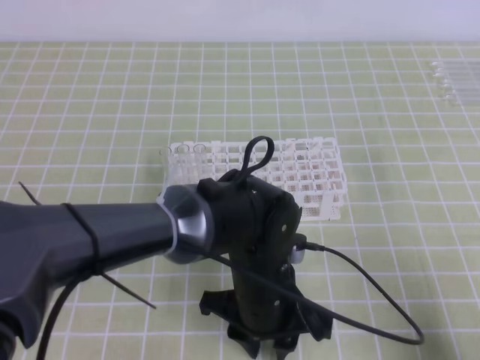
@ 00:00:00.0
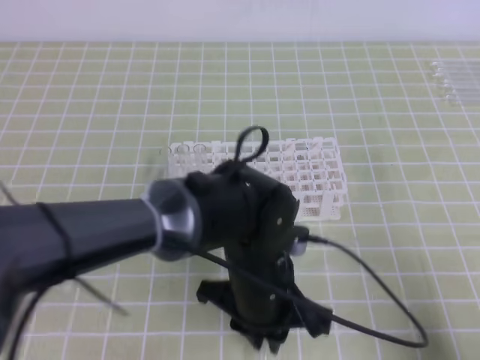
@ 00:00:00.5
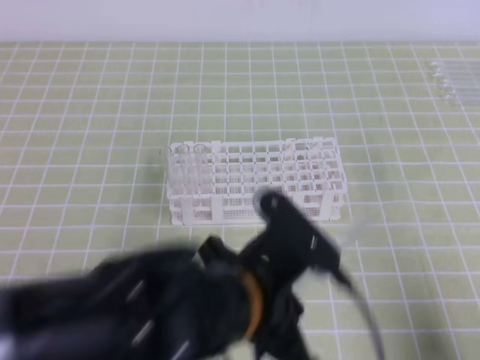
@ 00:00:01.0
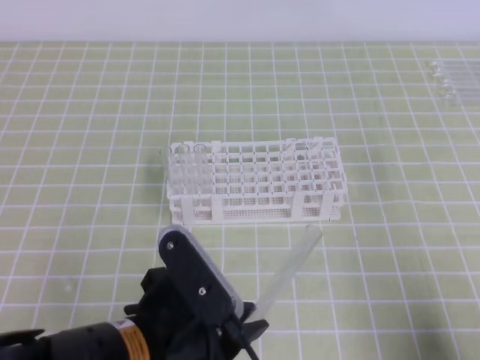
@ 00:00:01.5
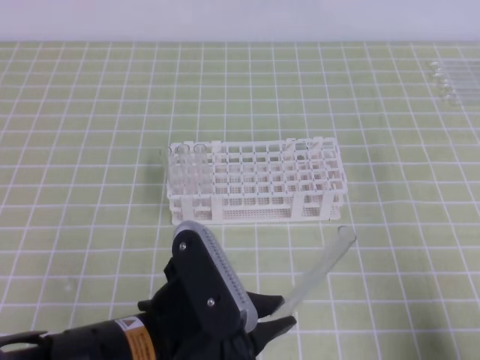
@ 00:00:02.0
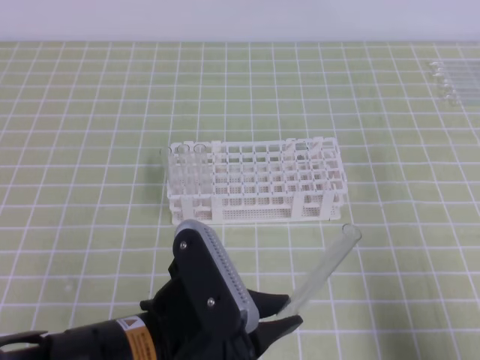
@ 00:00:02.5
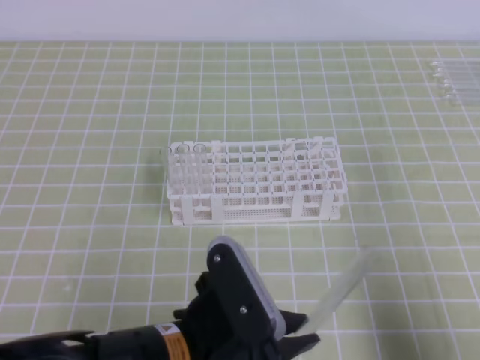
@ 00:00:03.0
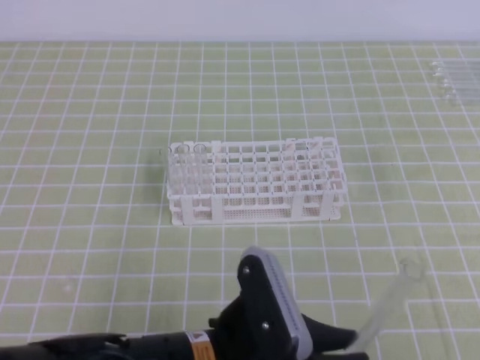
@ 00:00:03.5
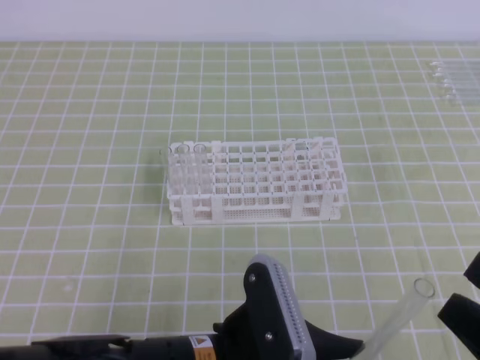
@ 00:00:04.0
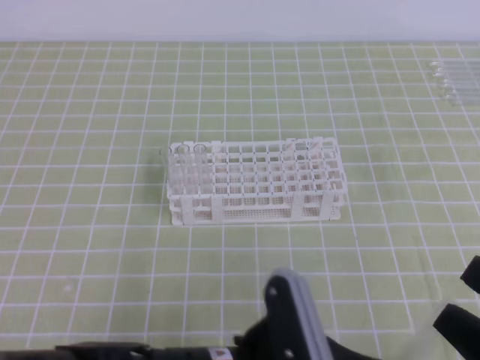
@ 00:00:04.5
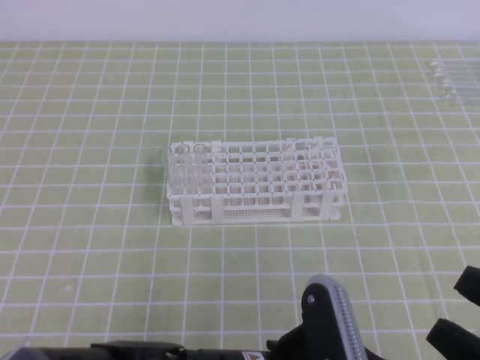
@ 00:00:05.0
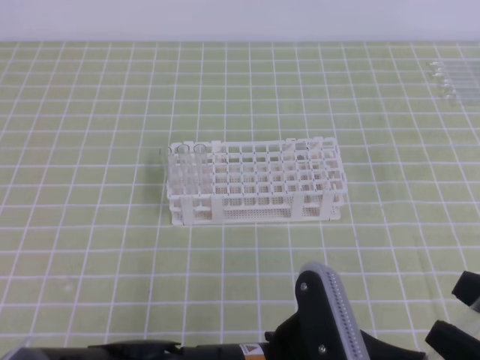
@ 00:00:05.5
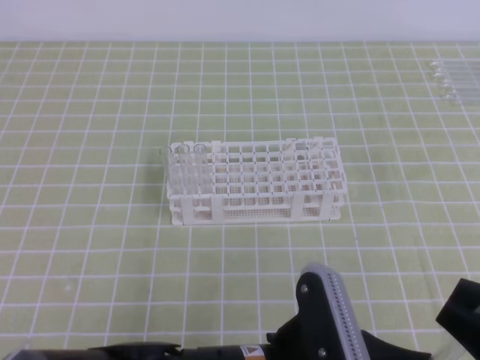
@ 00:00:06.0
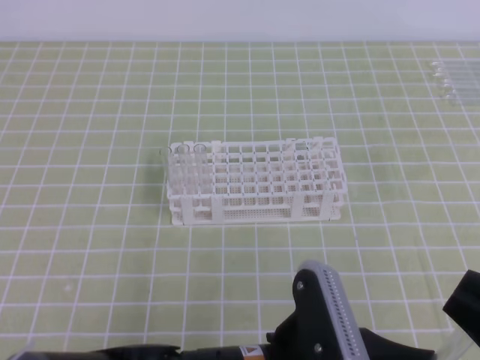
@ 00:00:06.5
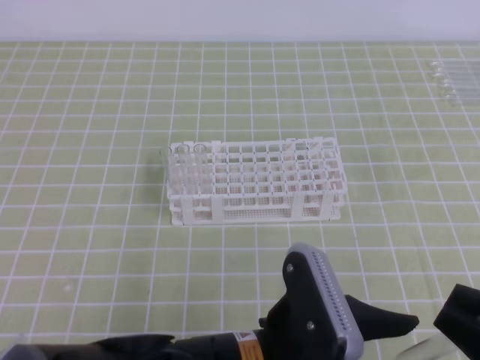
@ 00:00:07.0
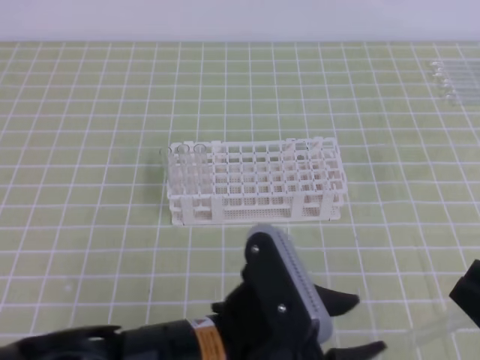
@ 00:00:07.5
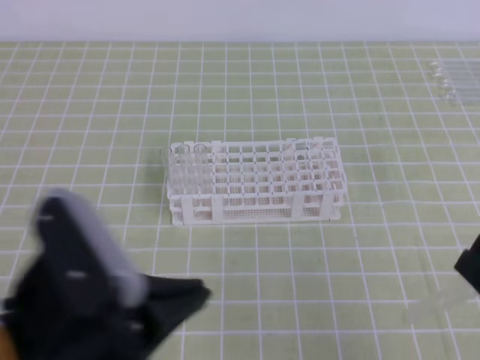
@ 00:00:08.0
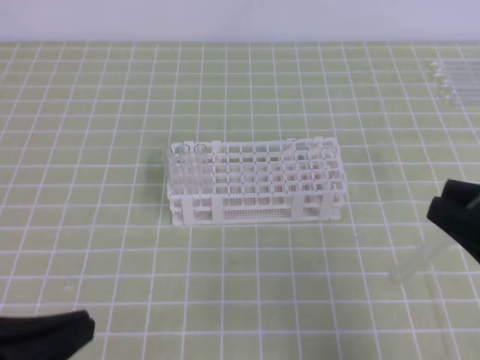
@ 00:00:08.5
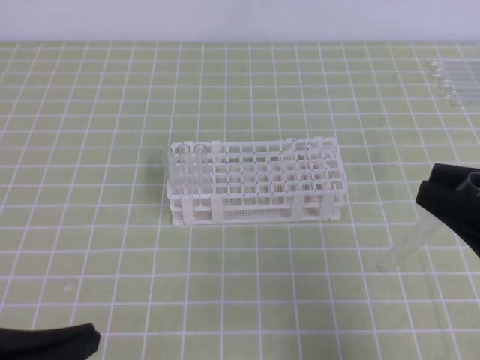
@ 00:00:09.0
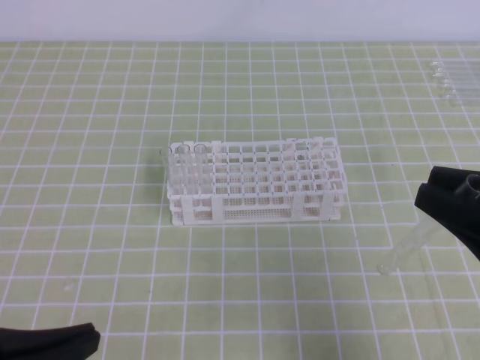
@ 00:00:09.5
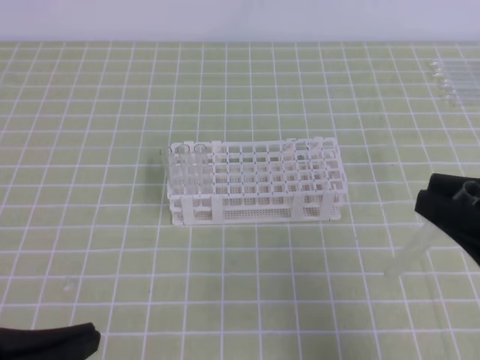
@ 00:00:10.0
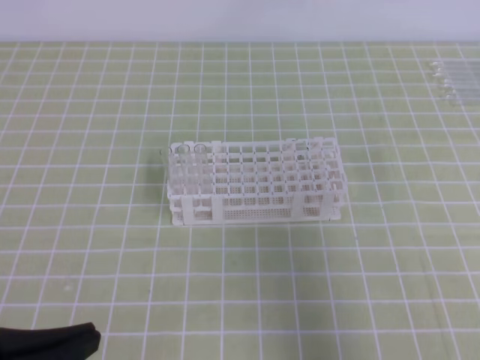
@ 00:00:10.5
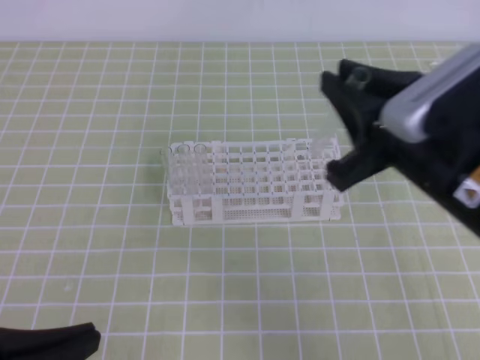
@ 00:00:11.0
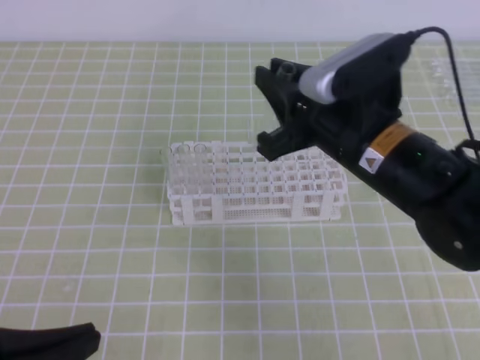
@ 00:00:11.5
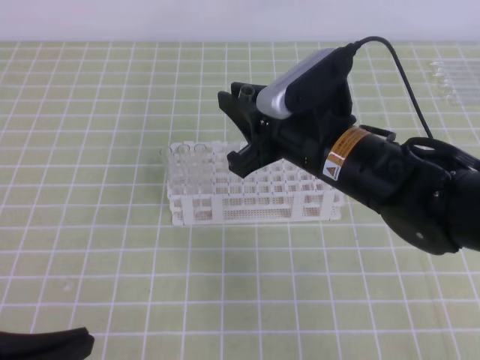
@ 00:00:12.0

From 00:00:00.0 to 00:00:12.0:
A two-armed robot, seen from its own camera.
From 00:00:00.0 to 00:00:02.0: The left gripper shifts about 15 cm backward, to the left and upward, and closes up.
From 00:00:02.0 to 00:00:04.0: The right gripper heads upward and to the left, covering some 10 cm, and opens its fingers. The left gripper changes place by roughly 5 cm.
From 00:00:04.0 to 00:00:06.0: The right gripper closes up.
From 00:00:06.0 to 00:00:08.0: The left gripper heads to the left and upward, covering about 15 cm, and opens, then closes once more.
From 00:00:08.0 to 00:00:10.0: The right gripper heads forward, covering approximately 5 cm. Meanwhile the left gripper is displaced to the left by roughly 10 cm.
From 00:00:10.0 to 00:00:12.0: The right gripper moves to the left and forward, approximately 25 cm.

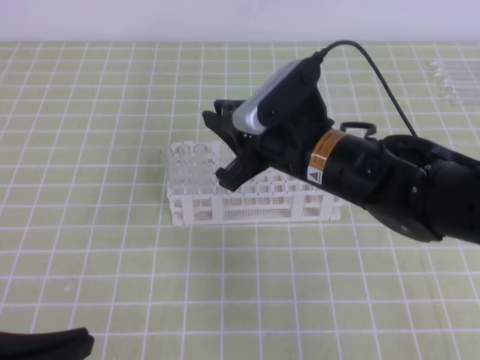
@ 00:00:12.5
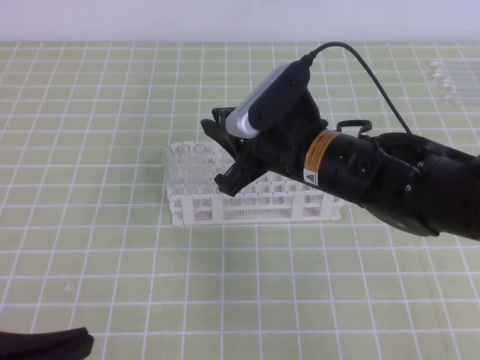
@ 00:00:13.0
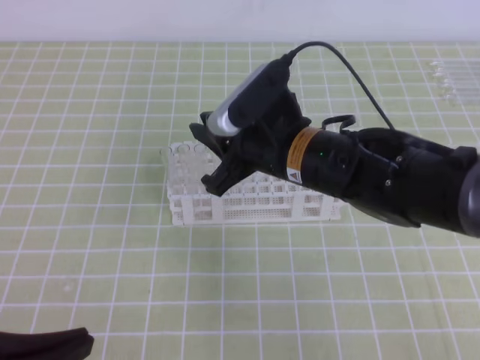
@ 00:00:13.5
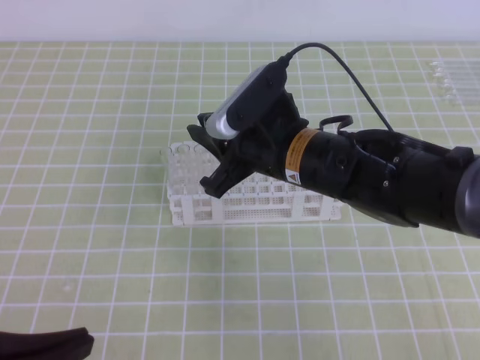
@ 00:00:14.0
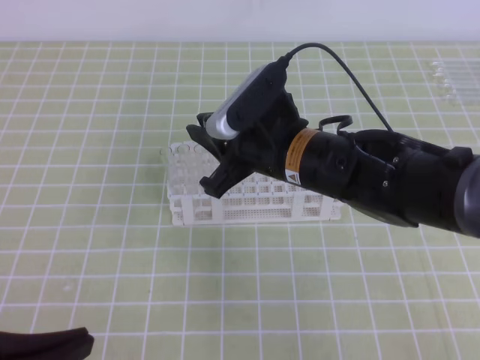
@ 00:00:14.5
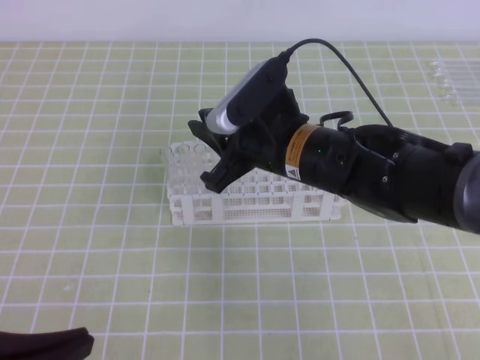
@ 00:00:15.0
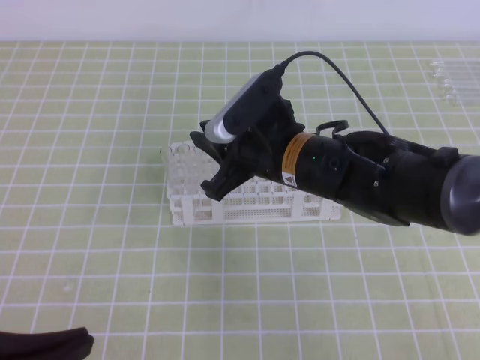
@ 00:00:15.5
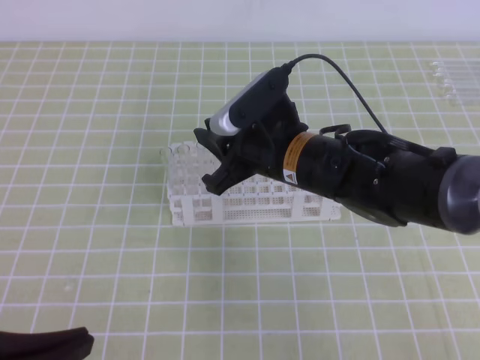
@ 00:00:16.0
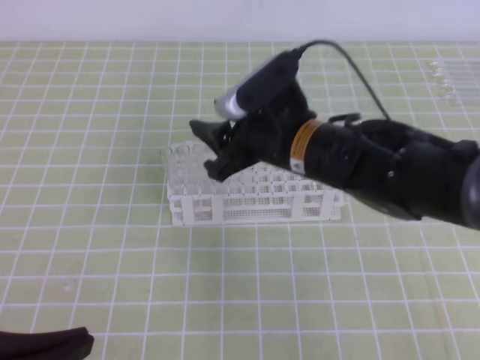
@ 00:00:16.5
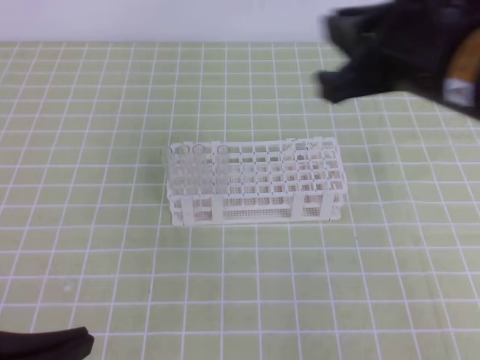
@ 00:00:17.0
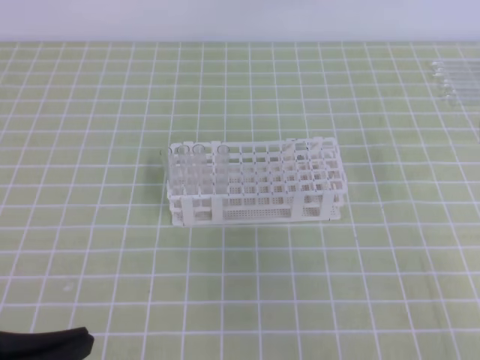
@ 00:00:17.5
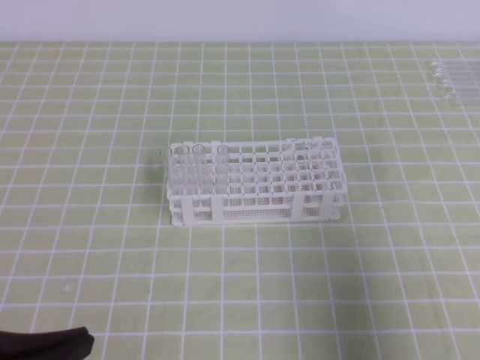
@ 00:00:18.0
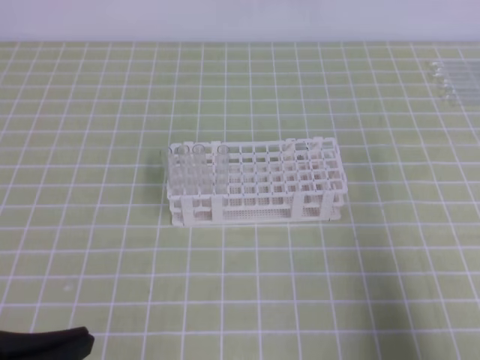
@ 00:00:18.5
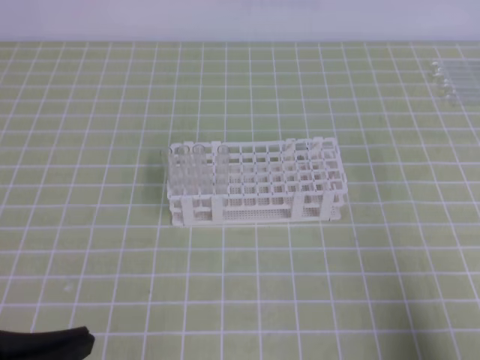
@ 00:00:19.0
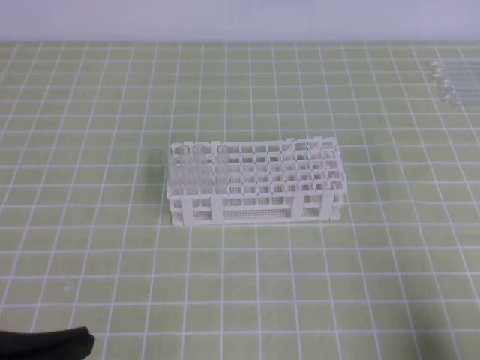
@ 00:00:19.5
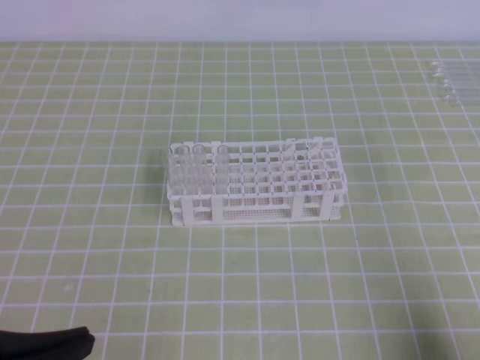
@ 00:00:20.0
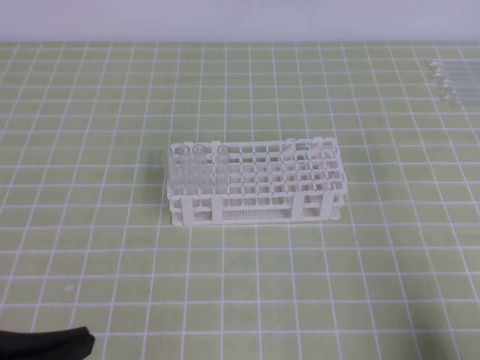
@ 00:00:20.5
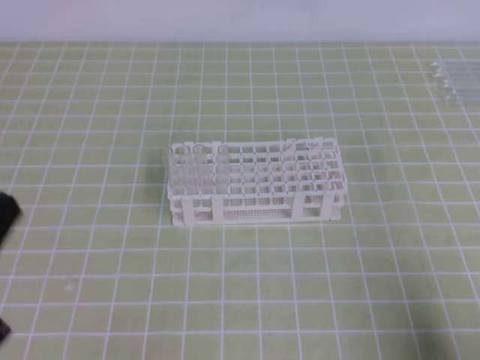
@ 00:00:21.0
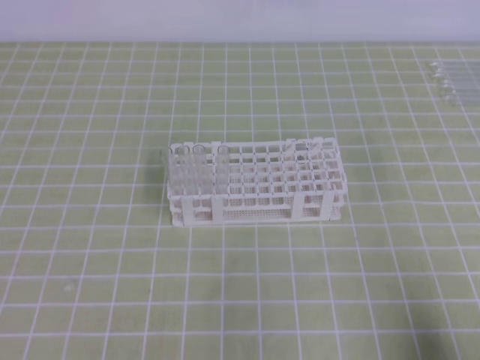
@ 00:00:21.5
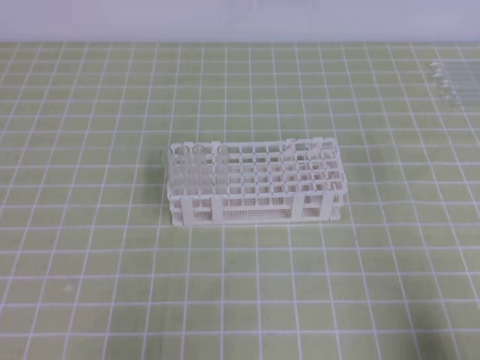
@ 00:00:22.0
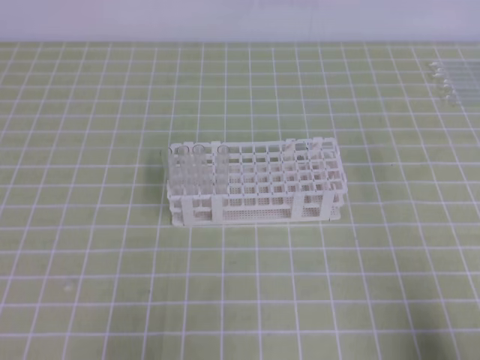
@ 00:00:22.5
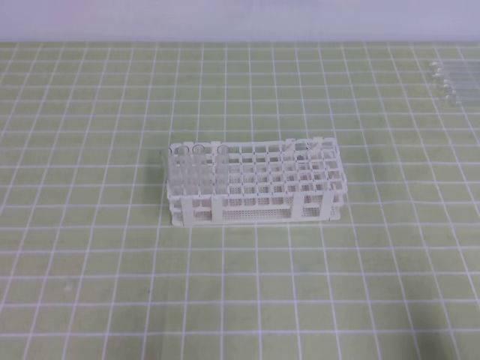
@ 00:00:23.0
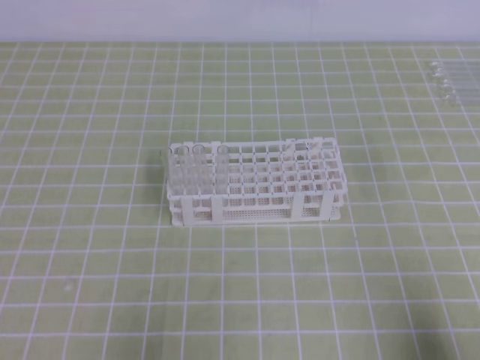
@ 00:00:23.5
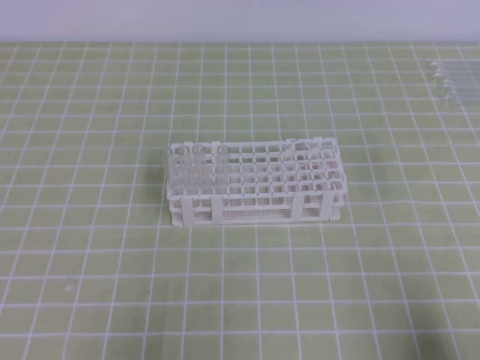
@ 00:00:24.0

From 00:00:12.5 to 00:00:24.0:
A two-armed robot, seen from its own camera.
From 00:00:12.5 to 00:00:14.5: The grippers make only small movements.
From 00:00:14.5 to 00:00:16.5: The right gripper opens up.
From 00:00:16.5 to 00:00:18.5: The right gripper heads to the right and backward, covering roughly 35 cm, and closes.
From 00:00:18.5 to 00:00:20.0: The right gripper goes some 5 cm downward.
From 00:00:20.0 to 00:00:22.0: The left gripper goes roughly 10 cm downward and to the left.
